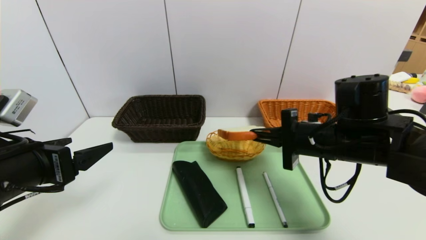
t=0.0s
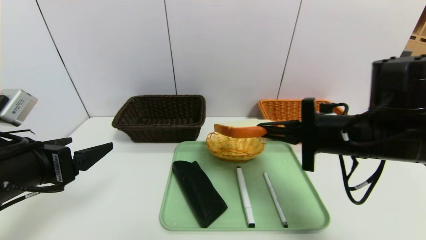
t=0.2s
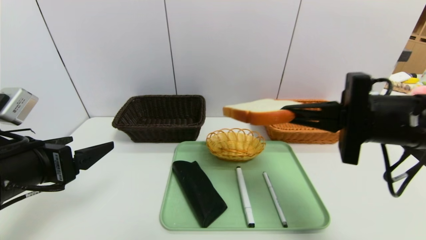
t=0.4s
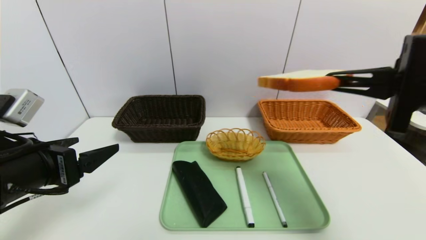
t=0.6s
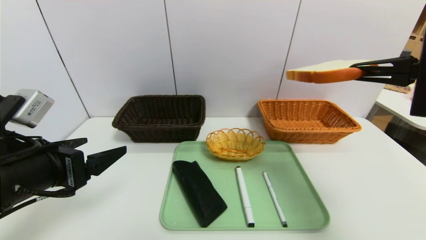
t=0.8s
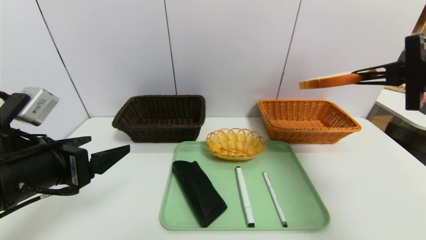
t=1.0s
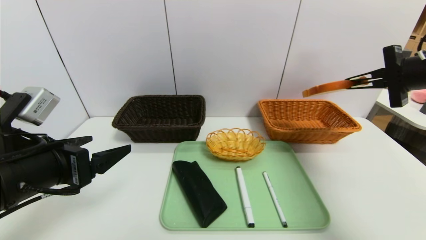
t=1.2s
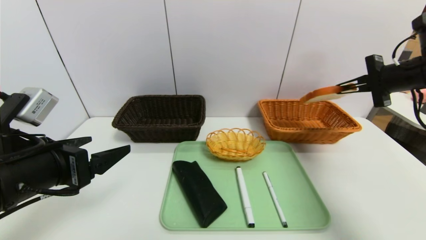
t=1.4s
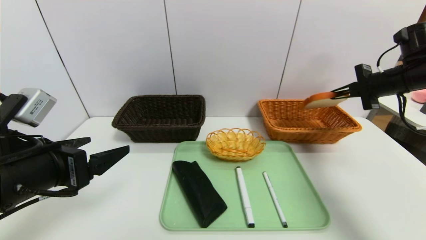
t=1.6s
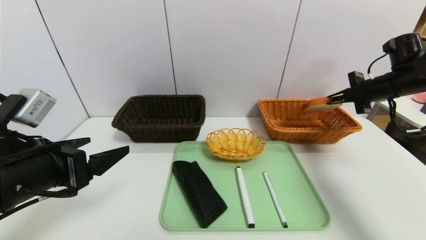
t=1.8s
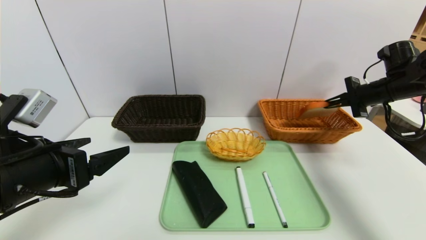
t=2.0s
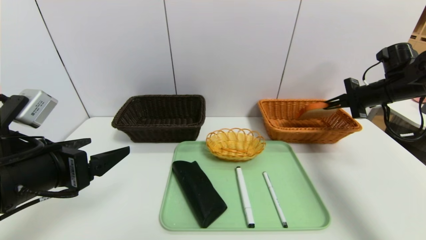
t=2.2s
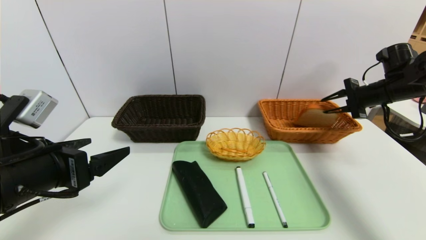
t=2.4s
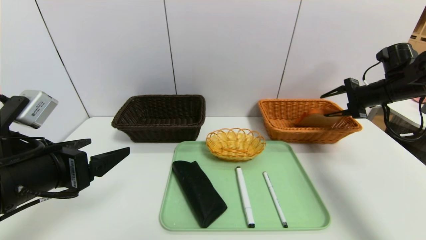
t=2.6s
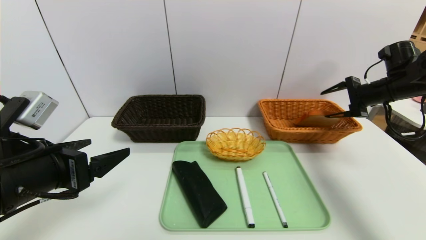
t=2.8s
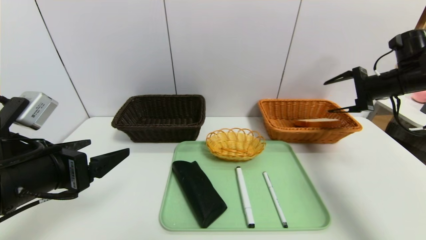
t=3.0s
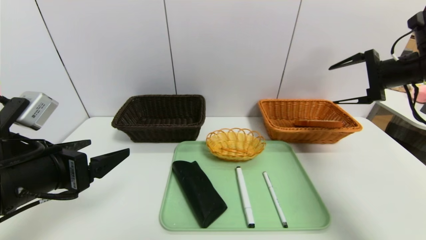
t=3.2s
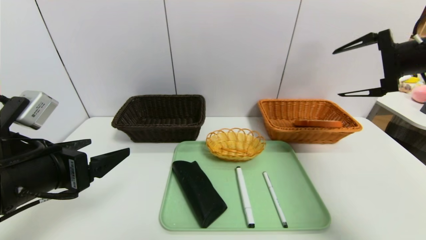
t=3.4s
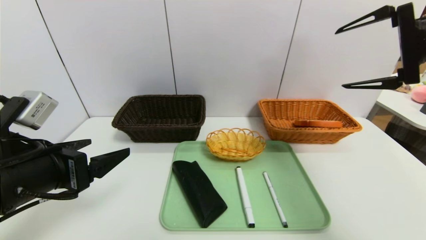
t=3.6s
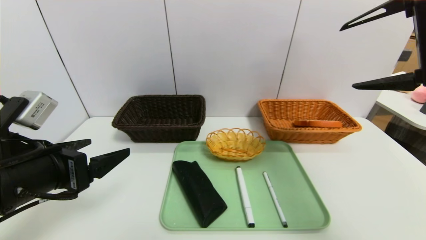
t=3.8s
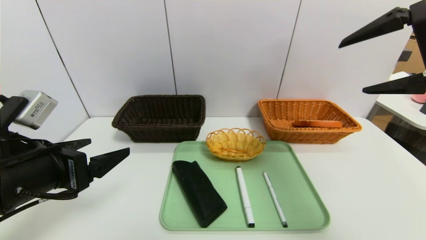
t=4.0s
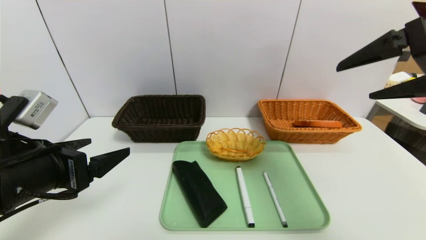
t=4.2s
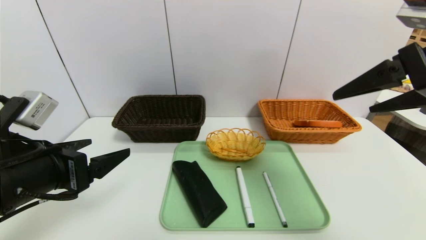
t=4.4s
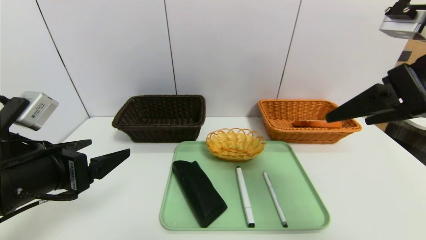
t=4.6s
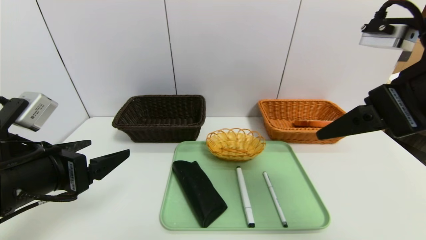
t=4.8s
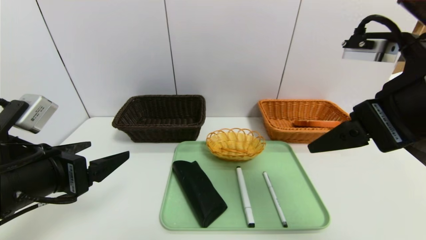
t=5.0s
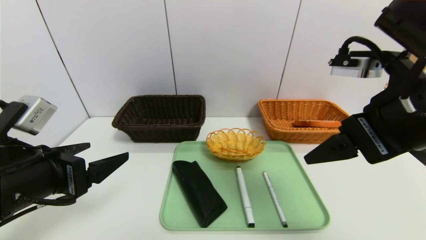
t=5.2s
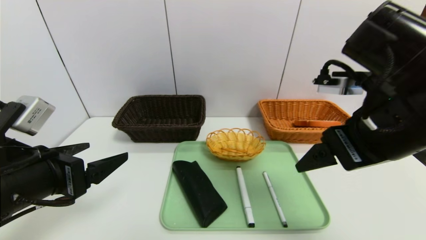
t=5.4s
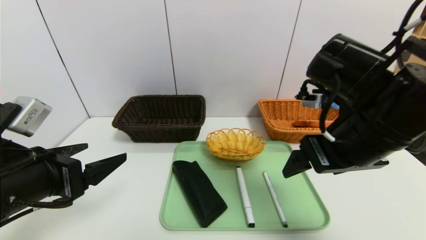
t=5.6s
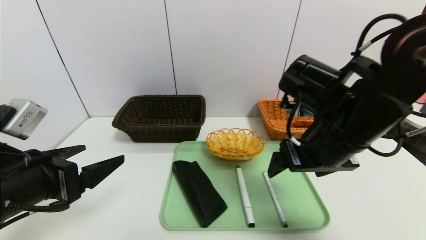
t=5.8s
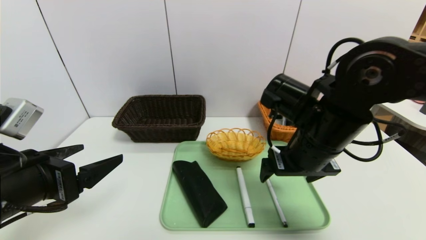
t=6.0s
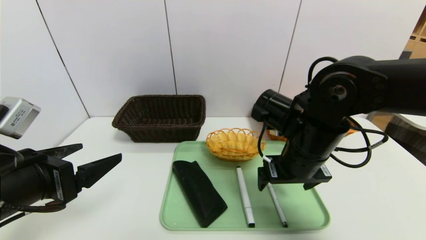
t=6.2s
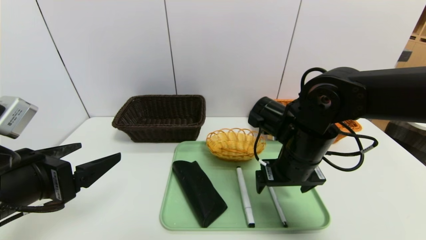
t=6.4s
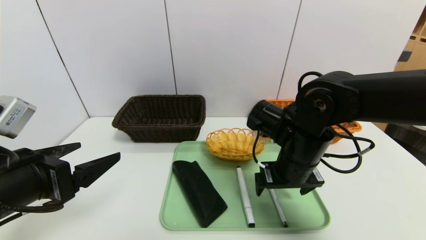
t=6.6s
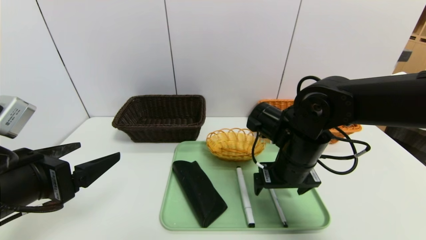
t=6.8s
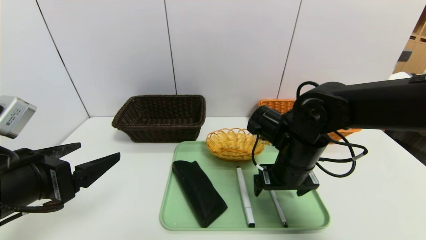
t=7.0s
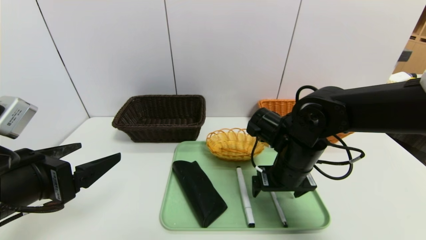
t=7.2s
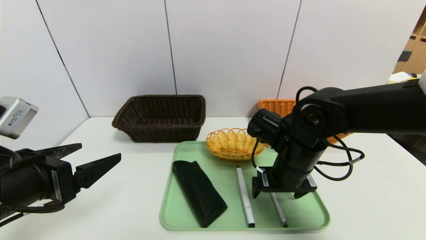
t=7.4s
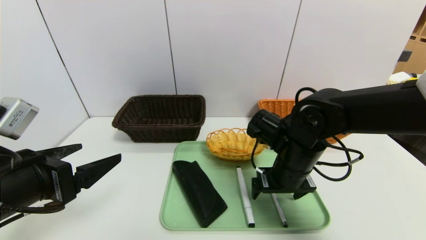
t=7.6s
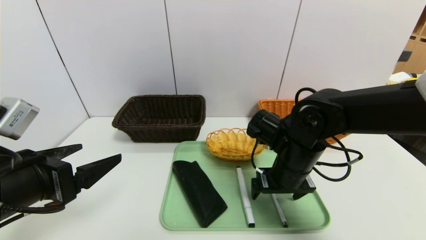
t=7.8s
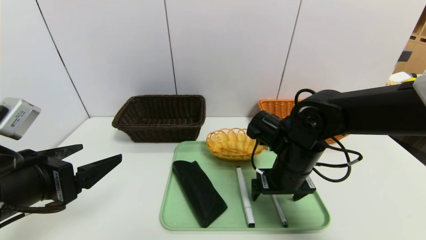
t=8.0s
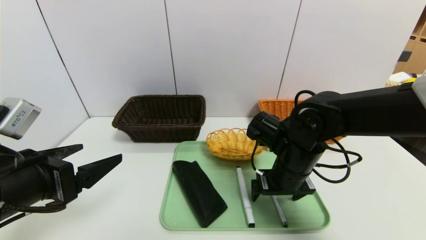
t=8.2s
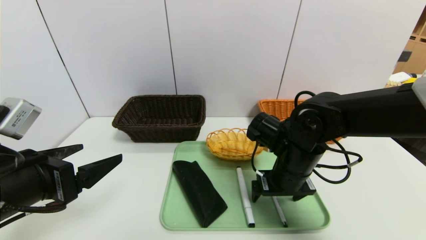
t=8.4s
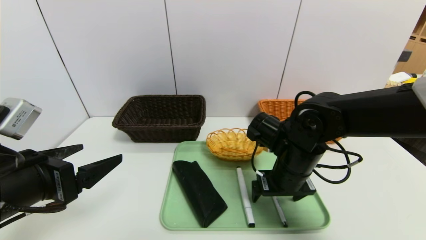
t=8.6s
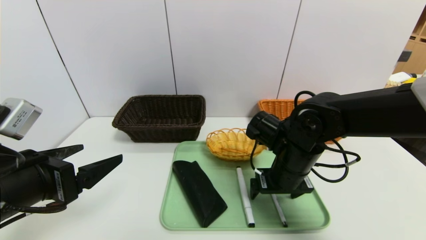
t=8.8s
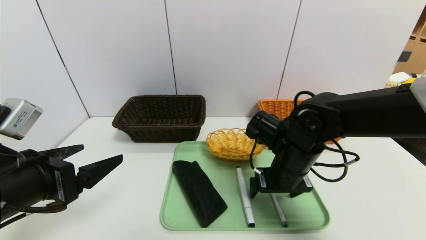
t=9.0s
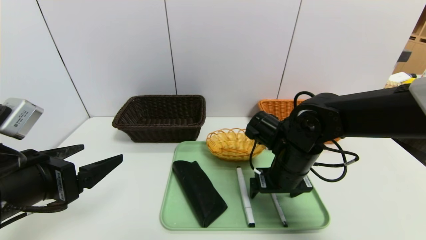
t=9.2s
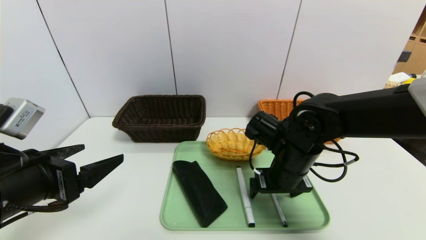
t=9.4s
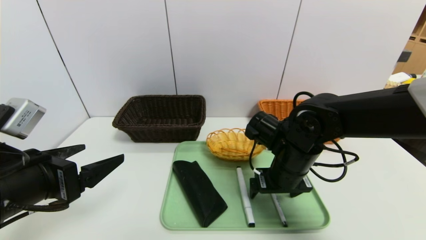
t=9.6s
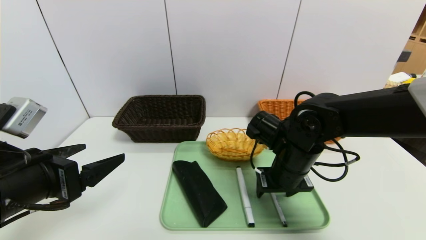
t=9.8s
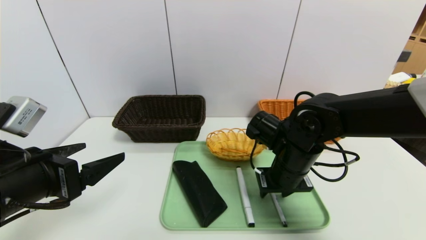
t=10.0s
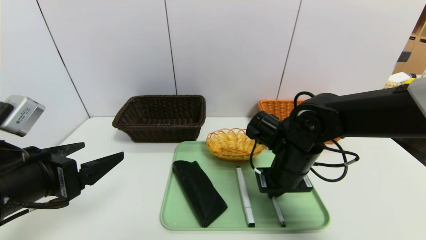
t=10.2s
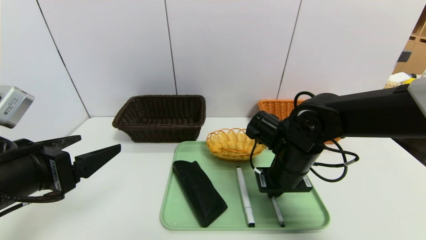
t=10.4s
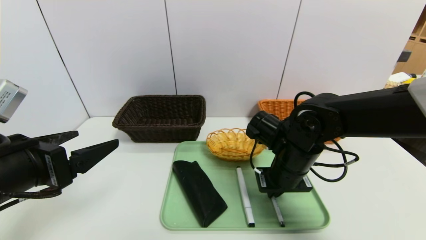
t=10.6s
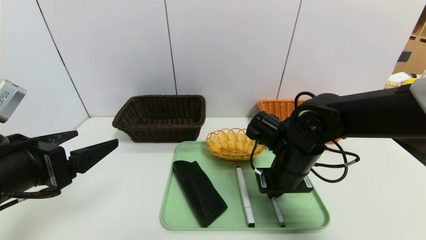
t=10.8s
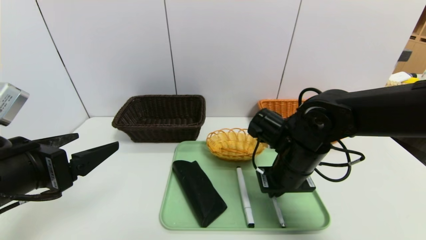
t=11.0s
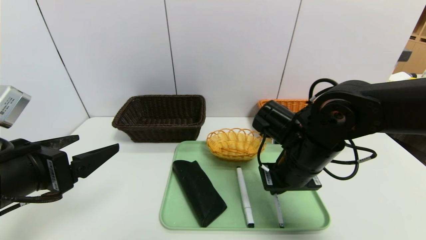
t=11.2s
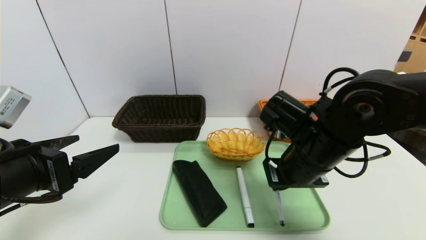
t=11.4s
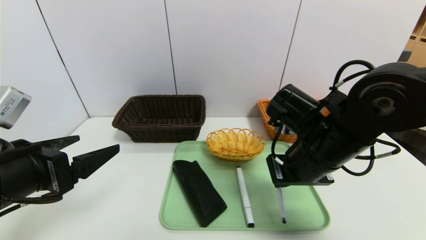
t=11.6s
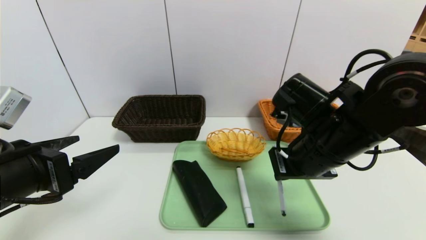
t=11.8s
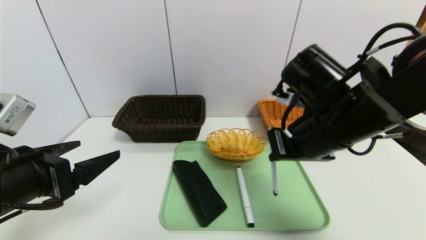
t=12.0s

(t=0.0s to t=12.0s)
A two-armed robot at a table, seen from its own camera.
Task of the whole recording: place the food in the right basket with the right gripper, and place the non food items in the left basket with the left gripper.
Step, t=0.0s - t=3.2s: Grasp the bread slice and put it in the right basket.
t=0.0s - t=1.6s: The right gripper goes some 25 cm to the right and forward.
t=1.6s - t=3.0s: The right gripper opens up.
t=3.0s - t=4.4s: The right gripper travels backward, to the left and upward by about 25 cm.
t=4.4s - t=6.0s: The right gripper travels downward, to the left and forward by approximately 20 cm.
t=6.0s - t=7.6s: The right gripper heads downward, covering approximately 5 cm.
t=7.6s - t=9.0s: Neither gripper changes place.
t=9.0s - t=10.4s: The right gripper closes.
t=10.4s - t=12.0s: The right gripper heads upward, covering some 10 cm.

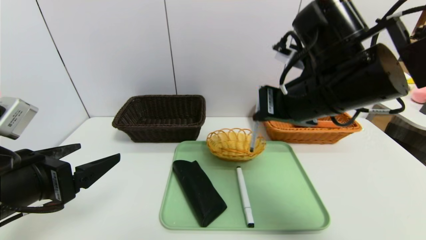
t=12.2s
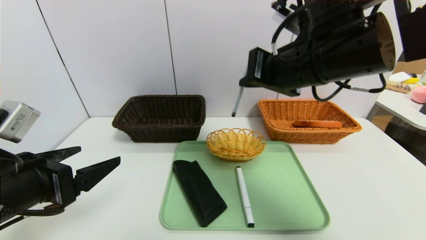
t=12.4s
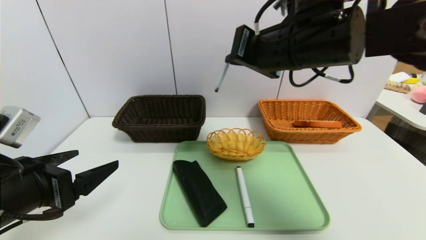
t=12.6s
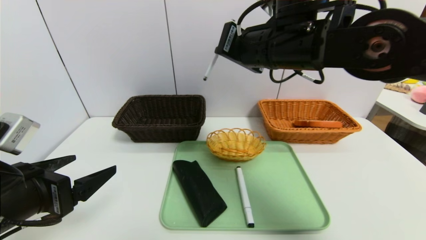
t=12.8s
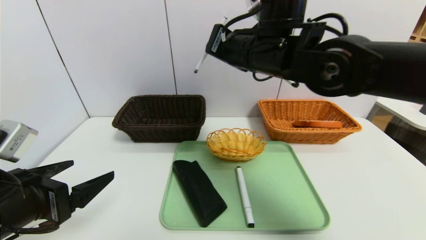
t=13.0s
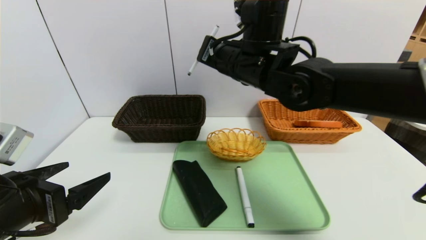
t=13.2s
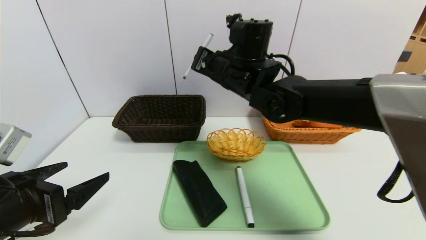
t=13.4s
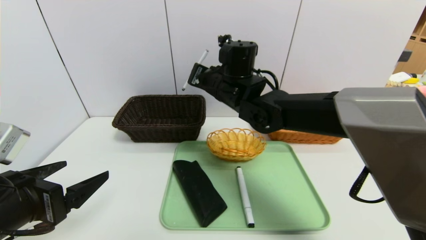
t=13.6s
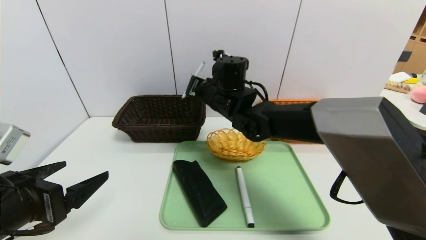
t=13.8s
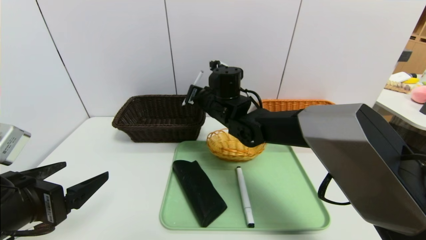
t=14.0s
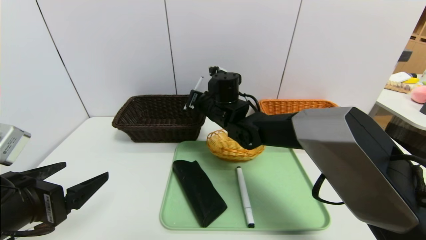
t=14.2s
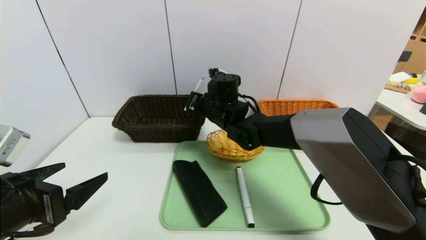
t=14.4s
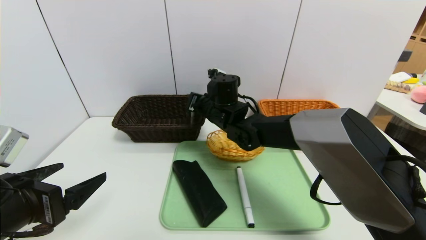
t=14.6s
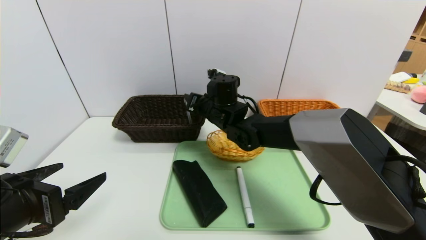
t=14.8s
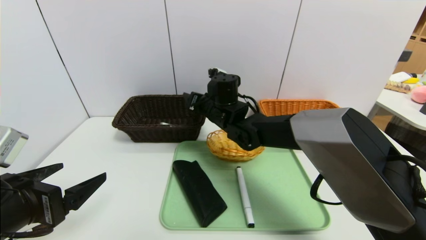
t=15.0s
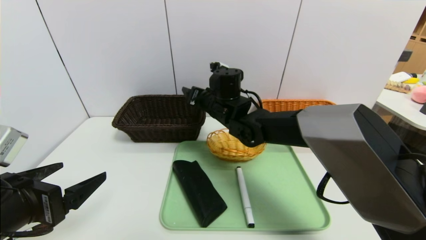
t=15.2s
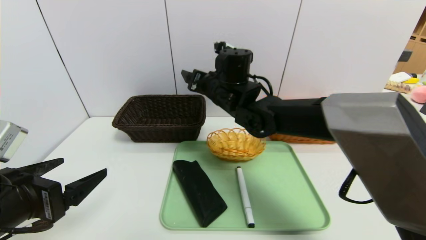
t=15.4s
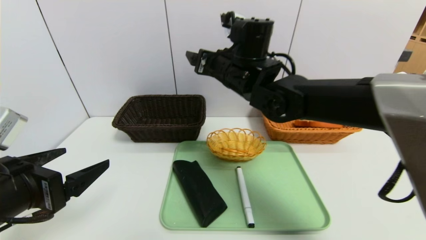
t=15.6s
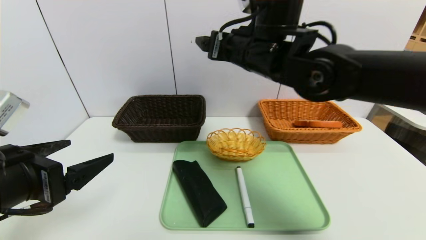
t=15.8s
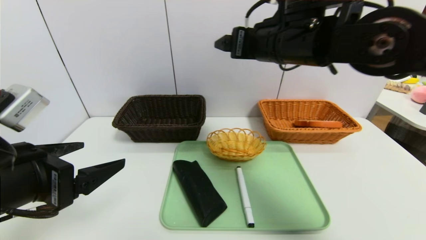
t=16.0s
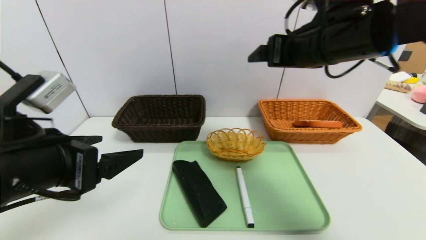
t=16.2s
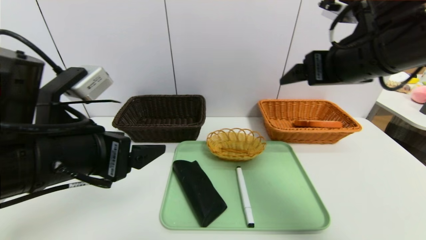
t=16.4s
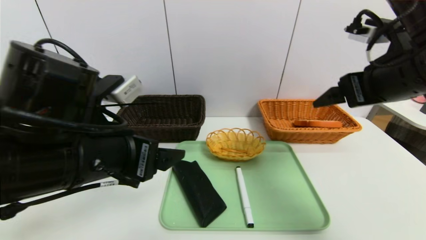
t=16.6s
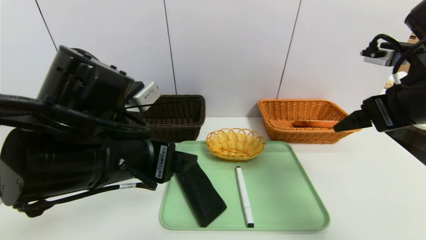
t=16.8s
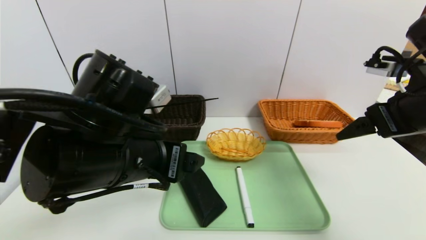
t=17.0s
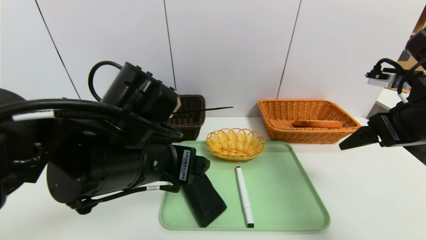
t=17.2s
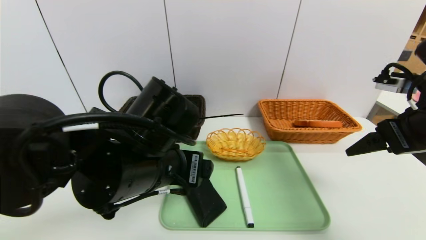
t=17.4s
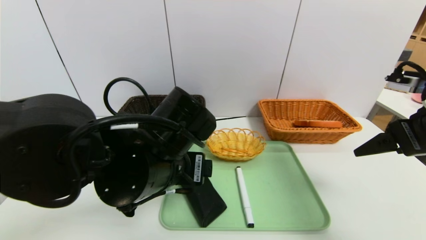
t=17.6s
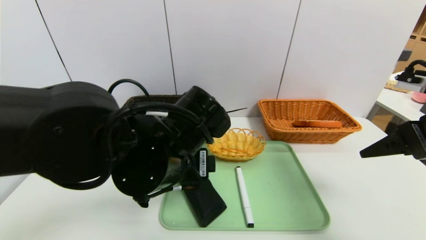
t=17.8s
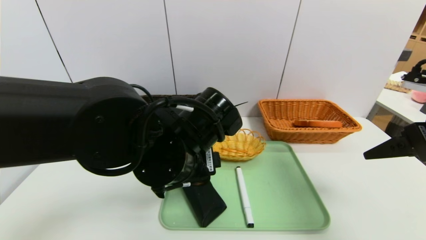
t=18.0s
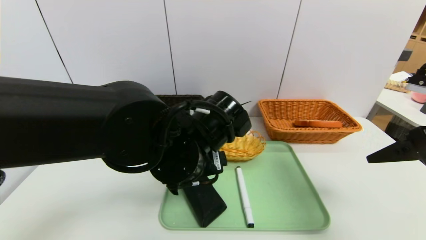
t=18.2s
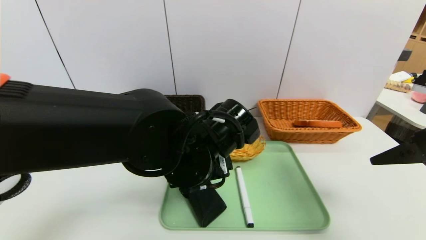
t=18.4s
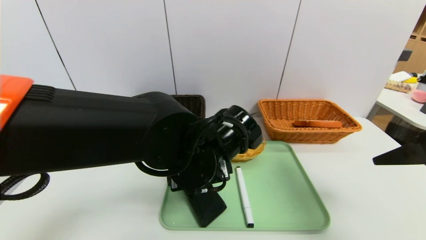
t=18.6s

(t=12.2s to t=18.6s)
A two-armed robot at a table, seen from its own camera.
Task of the whole recording: place the food in the right basket with the right gripper, and place the non food items in the left basket with the left gripper.
t=12.2s - t=13.8s: The right gripper shifts approximately 20 cm forward, to the left and downward.
t=13.8s - t=15.4s: The right gripper opens up.
t=15.4s - t=17.0s: The left gripper is displaced to the right and forward by some 15 cm. Meanwhile the right gripper is displaced to the right and backward by some 30 cm.
t=17.0s - t=18.6s: The right gripper heads backward, covering some 5 cm, while the left gripper goes some 10 cm to the right and downward.
